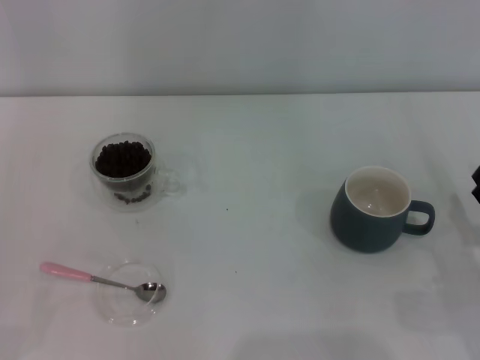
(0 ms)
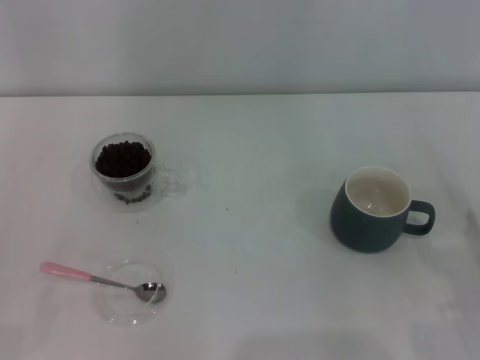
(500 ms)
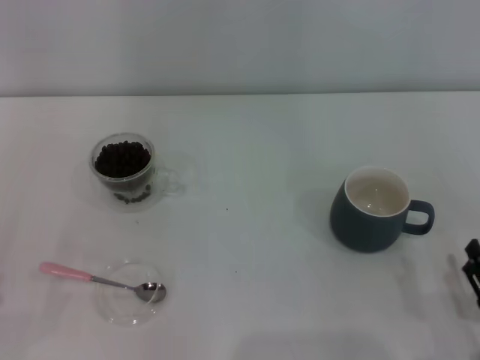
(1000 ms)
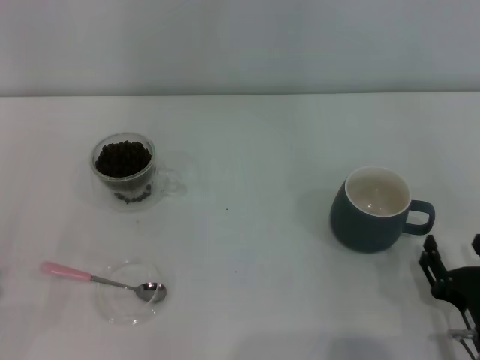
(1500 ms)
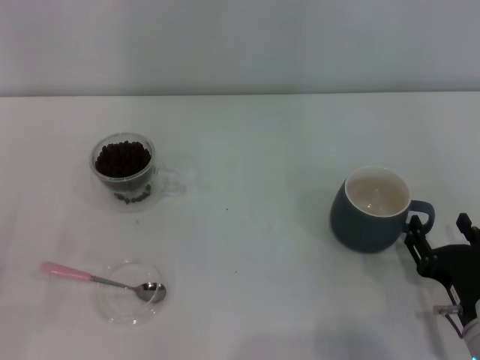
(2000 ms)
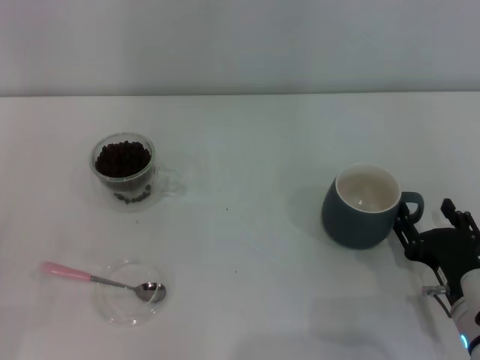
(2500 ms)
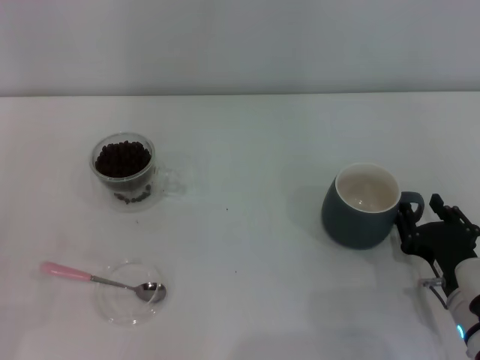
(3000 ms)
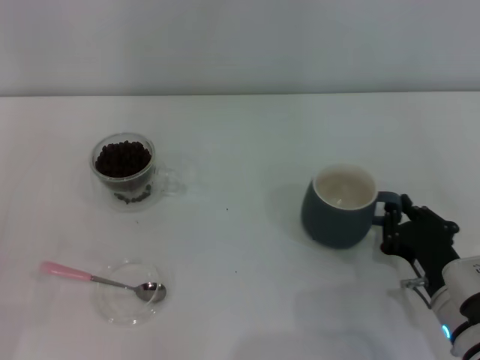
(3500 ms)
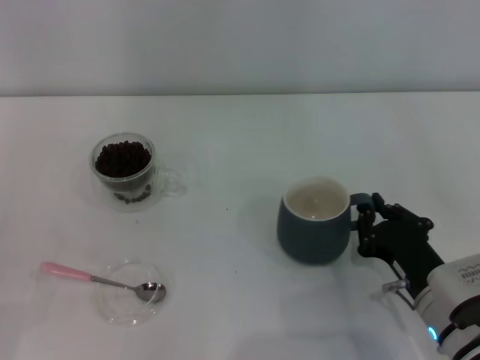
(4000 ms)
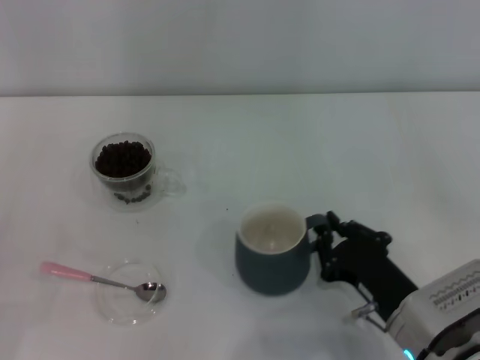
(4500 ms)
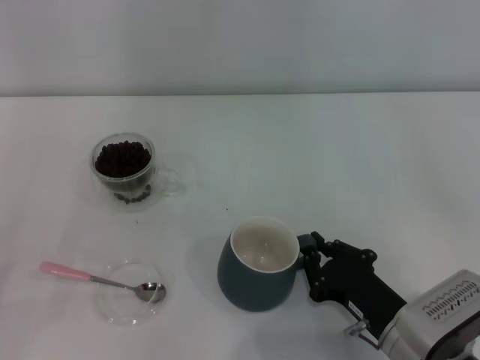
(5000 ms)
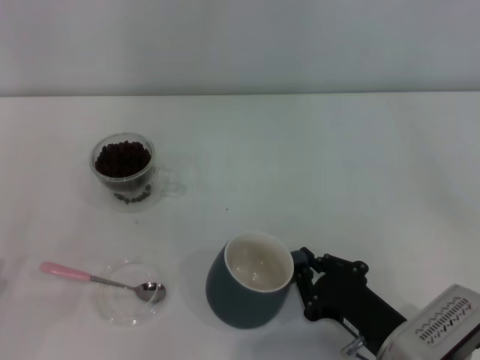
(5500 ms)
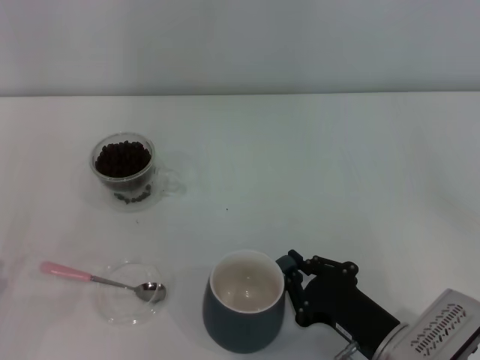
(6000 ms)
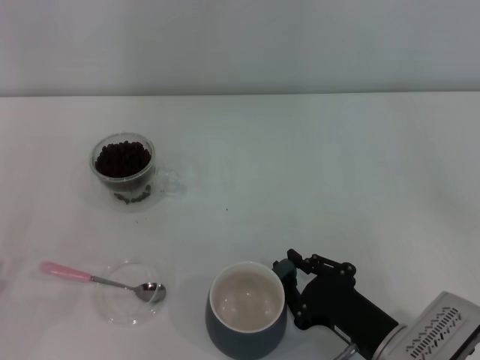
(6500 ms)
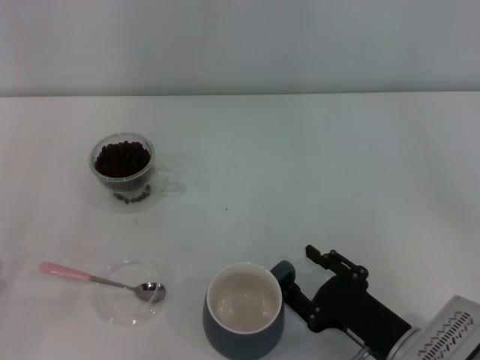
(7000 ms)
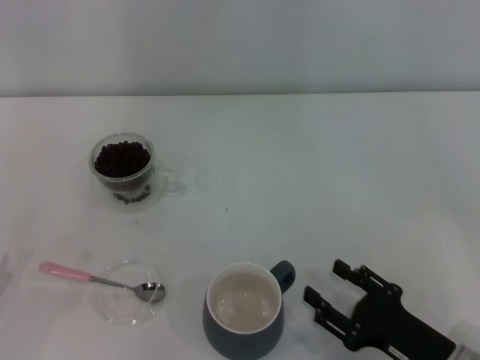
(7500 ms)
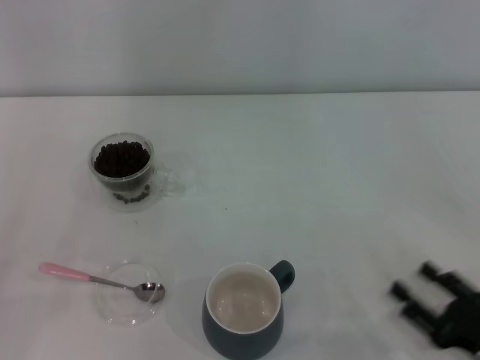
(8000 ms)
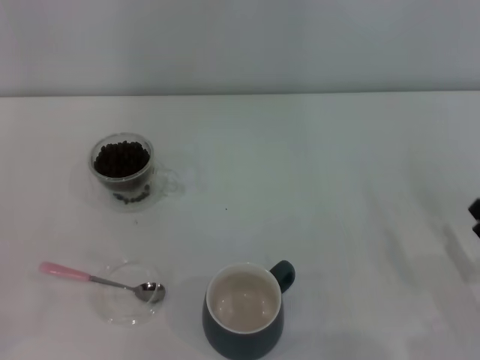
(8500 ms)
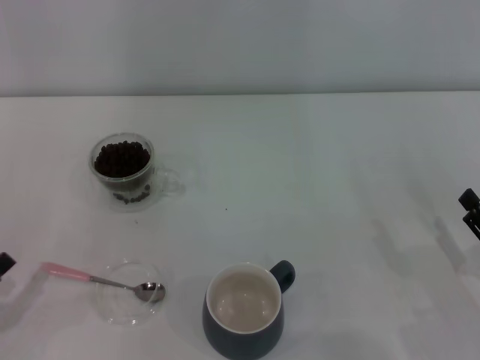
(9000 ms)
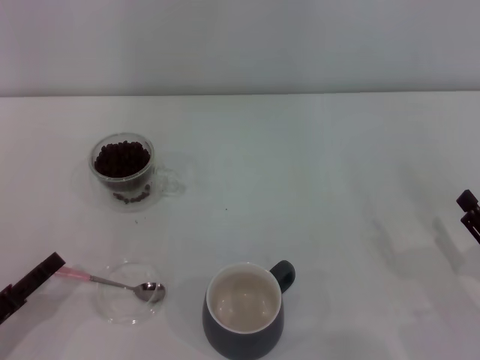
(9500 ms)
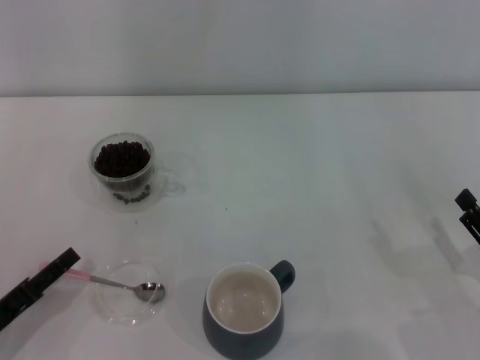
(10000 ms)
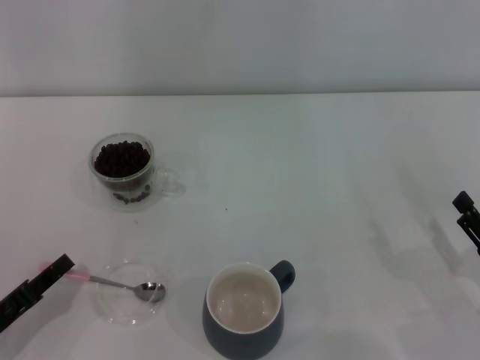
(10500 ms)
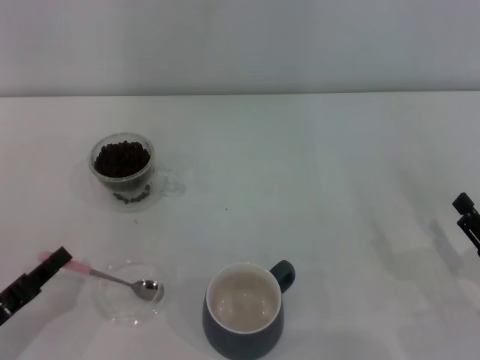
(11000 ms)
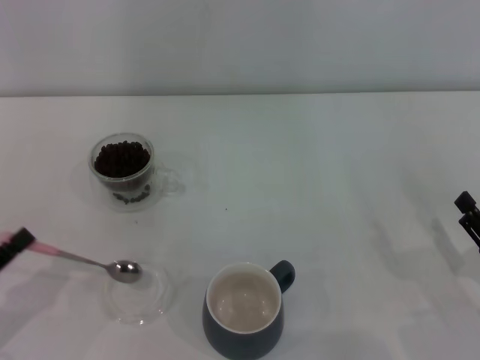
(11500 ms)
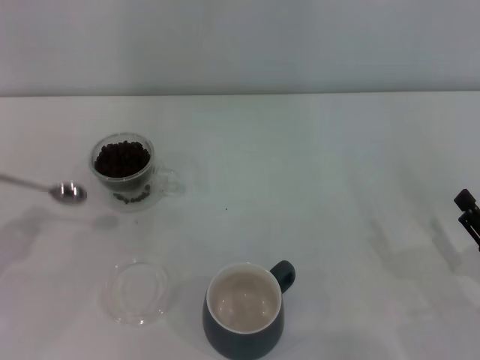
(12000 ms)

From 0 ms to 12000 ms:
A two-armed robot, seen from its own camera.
Task of the whole recording: Use a pink spoon to take out the coffee beans from the glass and pour them into the gray cup.
Step, from 0 ms to 7500 ms: Move the cup to the center of view with the left gripper.
Step, from 8000 ms to 11500 ms: Pick up the spoon with the right gripper.
From 0 ms to 2000 ms: The right gripper goes approximately 10 cm to the left.
From 2000 ms to 4000 ms: The right gripper closes up.
From 4000 ms to 6000 ms: The right gripper shifts by some 5 cm.
From 6000 ms to 8000 ms: The right gripper goes approximately 15 cm to the right, and opens.
From 8000 ms to 10000 ms: The right gripper changes place by roughly 5 cm, while the left gripper goes about 5 cm forward.
From 10000 ms to 12000 ms: The left gripper heads upward and to the left, covering about 10 cm, and closes.

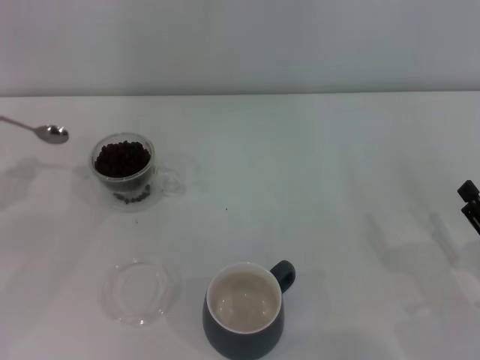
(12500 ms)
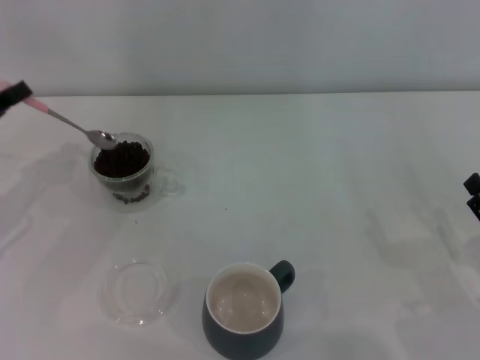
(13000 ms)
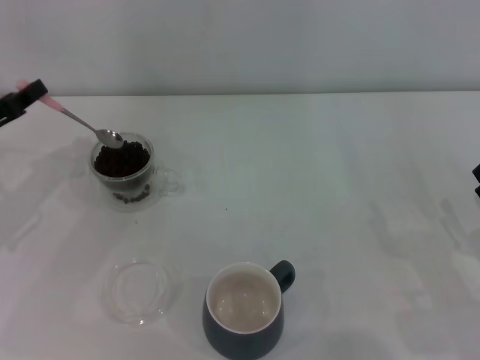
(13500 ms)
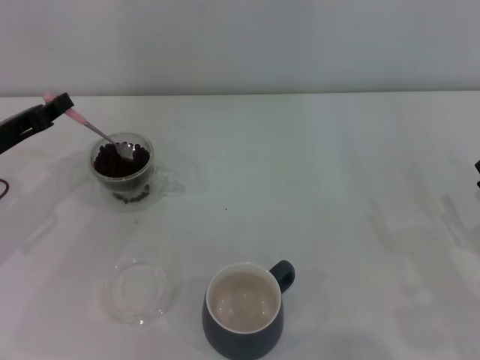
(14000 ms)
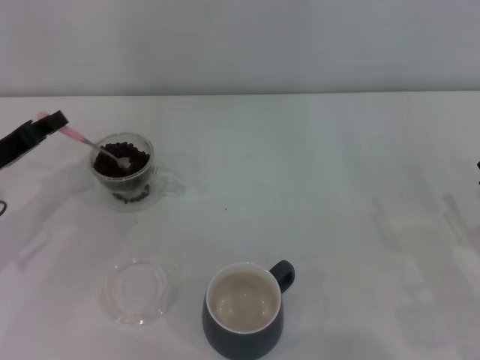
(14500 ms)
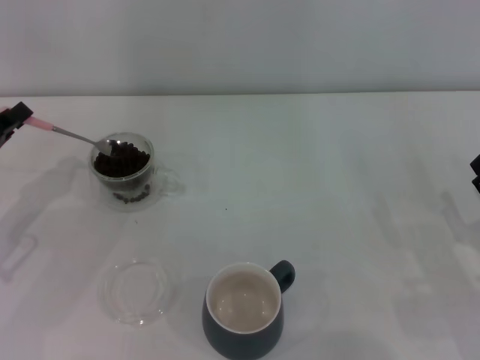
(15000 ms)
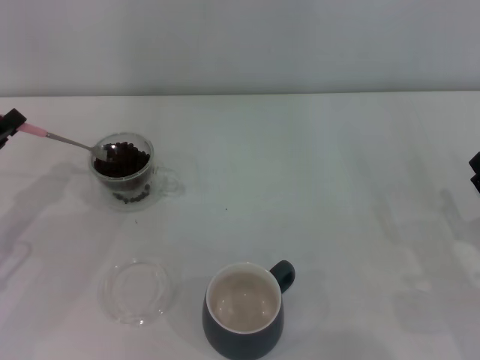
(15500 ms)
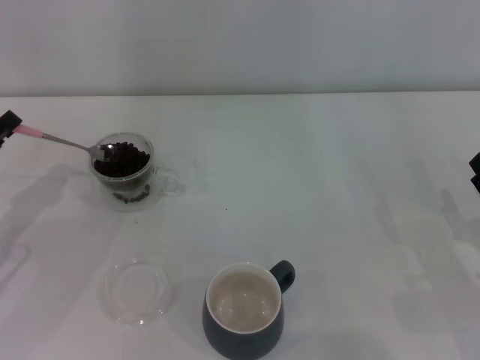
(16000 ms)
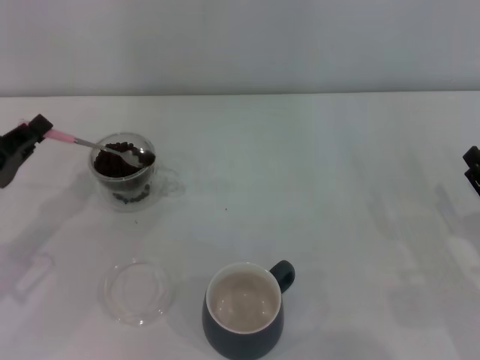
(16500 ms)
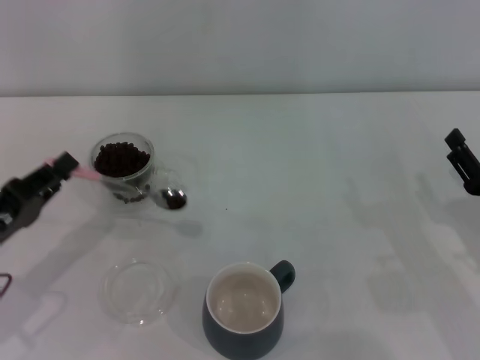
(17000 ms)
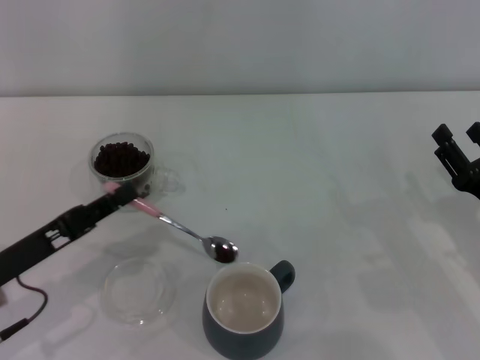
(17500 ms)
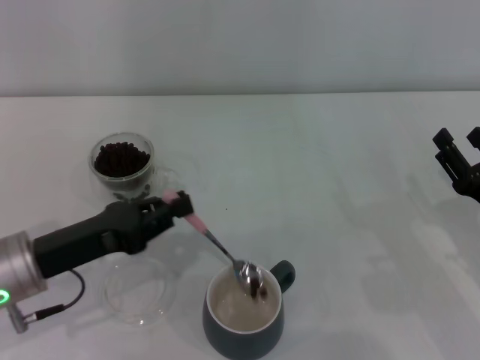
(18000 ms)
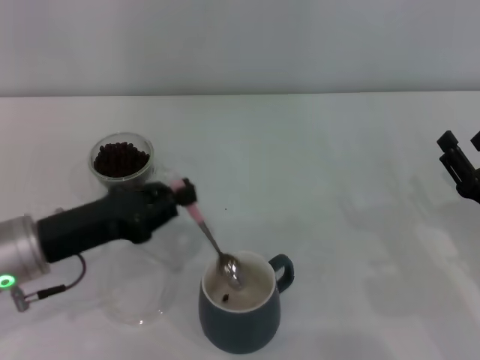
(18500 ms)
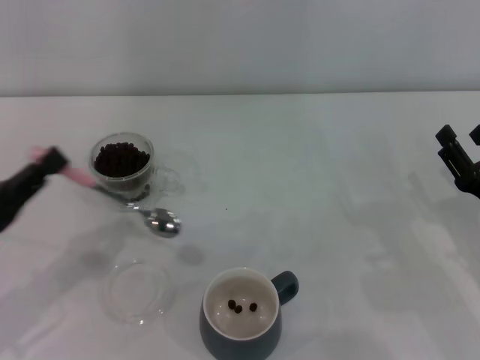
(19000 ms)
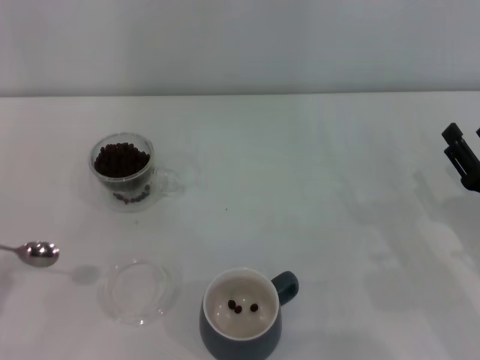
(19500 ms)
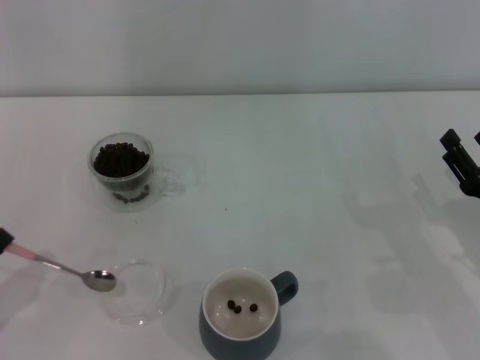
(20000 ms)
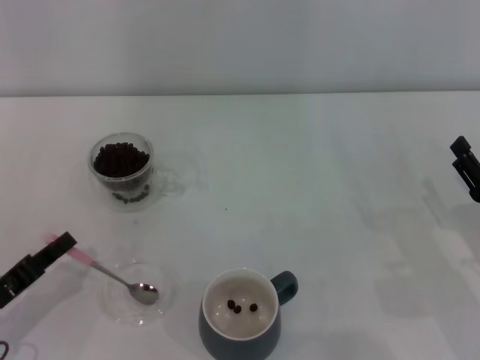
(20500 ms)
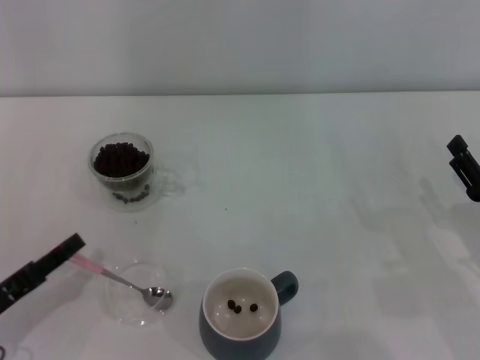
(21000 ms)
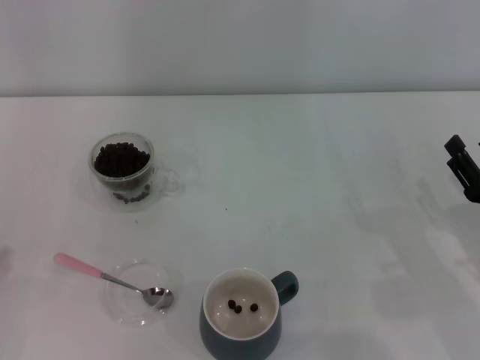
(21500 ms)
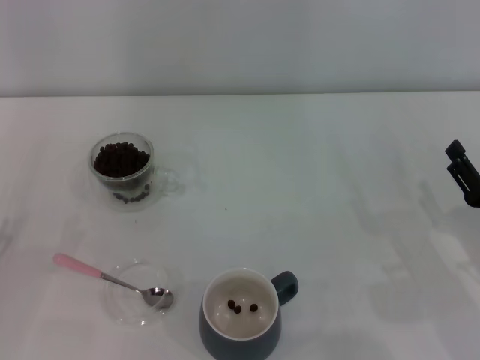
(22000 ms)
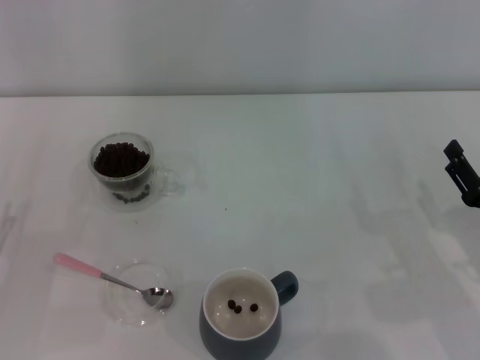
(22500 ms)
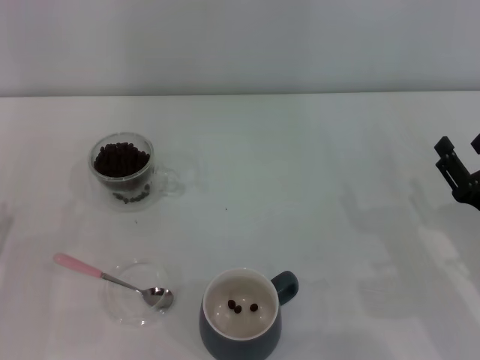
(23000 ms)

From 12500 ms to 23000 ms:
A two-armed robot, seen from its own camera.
Task of the whole recording: Use a pink spoon to take out the coffee beans from the glass and pour them into the gray cup.
Step, from 12500 ms to 18500 ms: Scoop a spoonful of beans into the cup with the right gripper.
From 12500 ms to 14500 ms: The left gripper travels to the right by approximately 10 cm.
From 14500 ms to 16500 ms: The left gripper goes about 5 cm backward.
From 16500 ms to 19000 ms: The left gripper is displaced backward by about 5 cm, and reaches some 10 cm to the right, then returns.
From 19000 ms to 21000 ms: The left gripper is displaced downward by some 5 cm, and travels backward and back again, roughly 10 cm each way.
From 21000 ms to 23000 ms: The left gripper opens.
